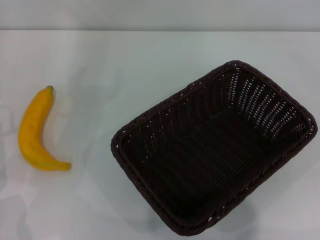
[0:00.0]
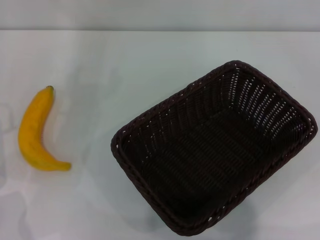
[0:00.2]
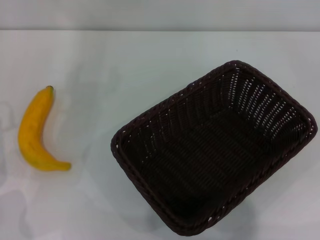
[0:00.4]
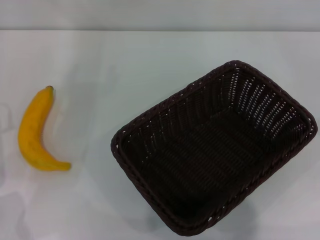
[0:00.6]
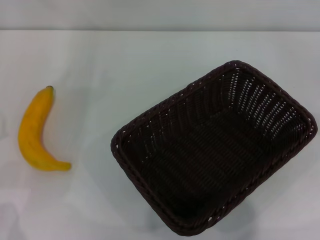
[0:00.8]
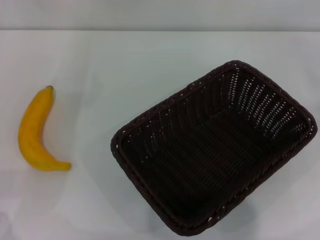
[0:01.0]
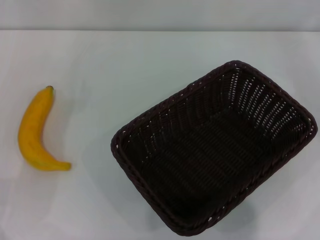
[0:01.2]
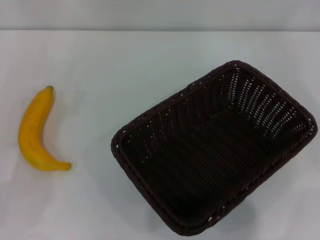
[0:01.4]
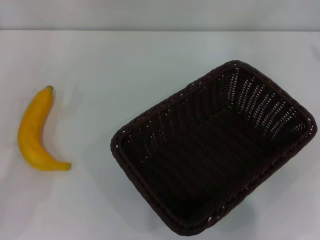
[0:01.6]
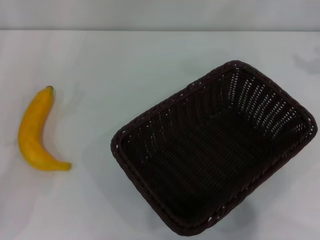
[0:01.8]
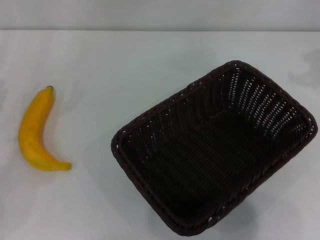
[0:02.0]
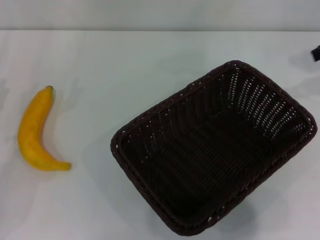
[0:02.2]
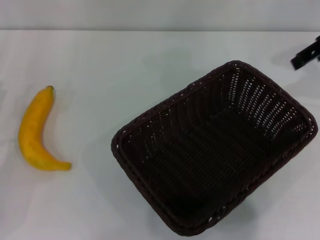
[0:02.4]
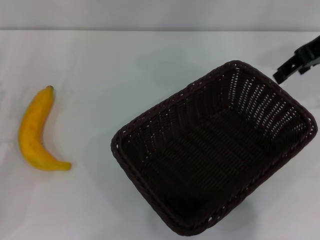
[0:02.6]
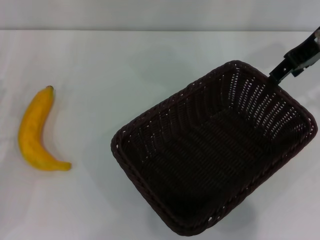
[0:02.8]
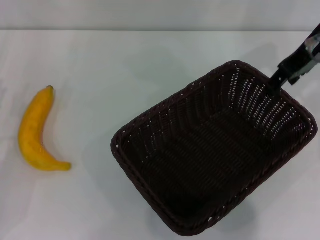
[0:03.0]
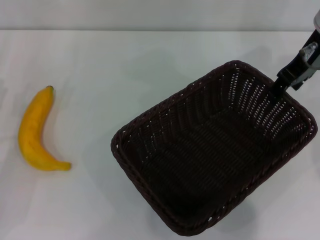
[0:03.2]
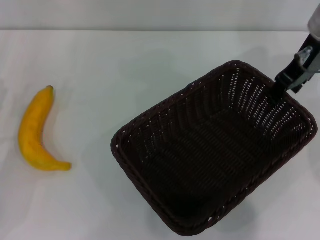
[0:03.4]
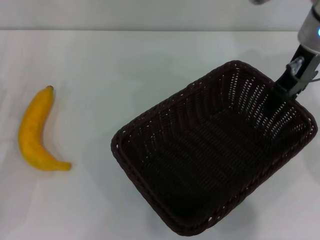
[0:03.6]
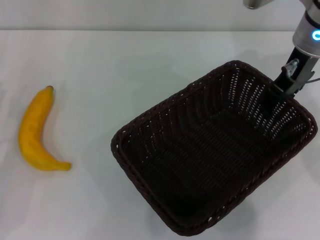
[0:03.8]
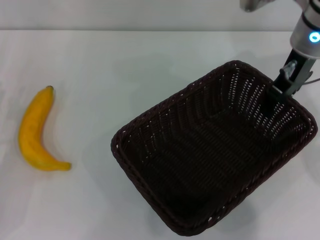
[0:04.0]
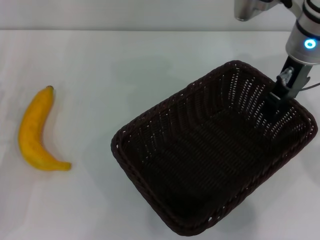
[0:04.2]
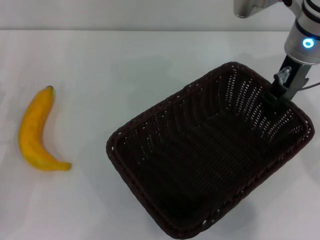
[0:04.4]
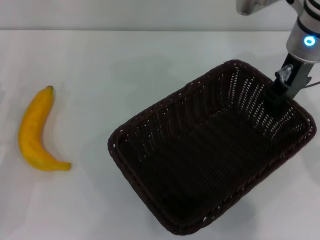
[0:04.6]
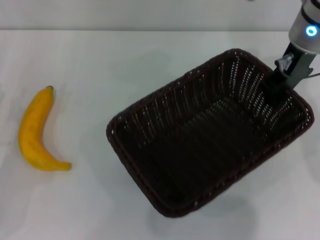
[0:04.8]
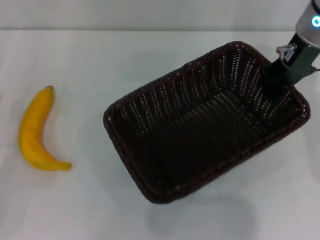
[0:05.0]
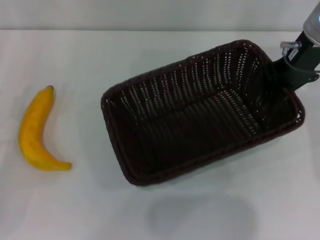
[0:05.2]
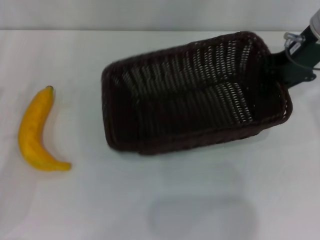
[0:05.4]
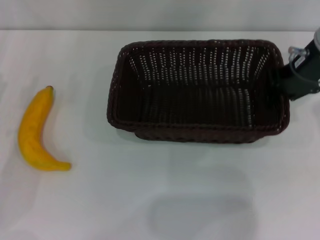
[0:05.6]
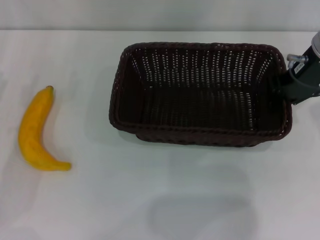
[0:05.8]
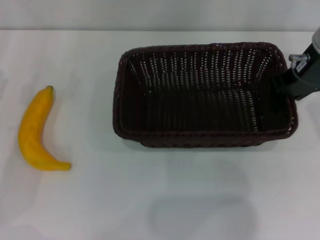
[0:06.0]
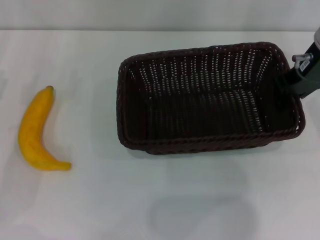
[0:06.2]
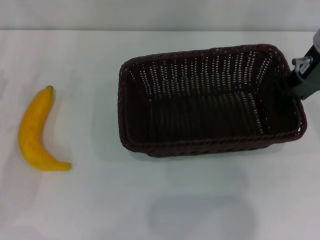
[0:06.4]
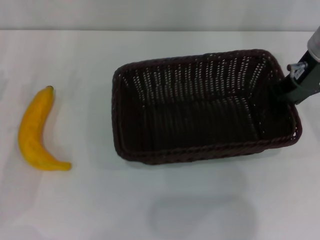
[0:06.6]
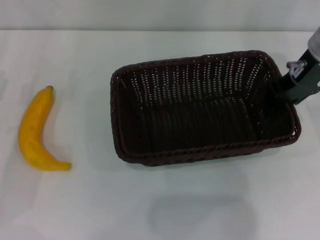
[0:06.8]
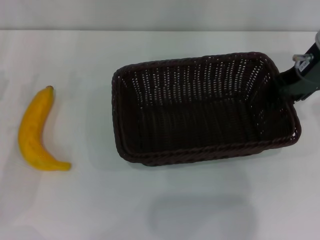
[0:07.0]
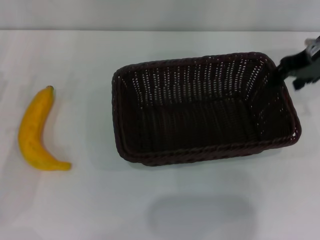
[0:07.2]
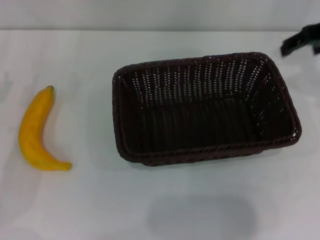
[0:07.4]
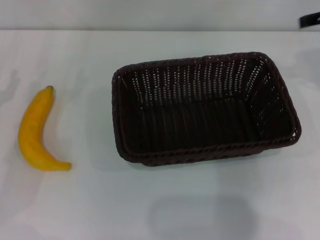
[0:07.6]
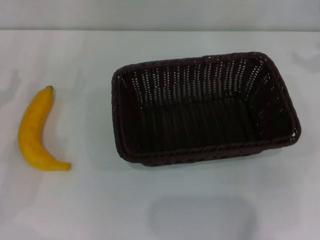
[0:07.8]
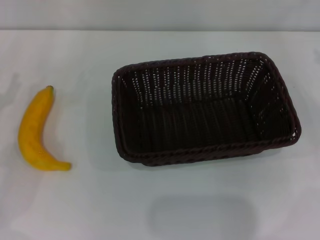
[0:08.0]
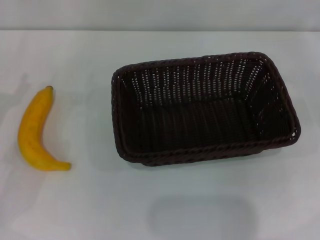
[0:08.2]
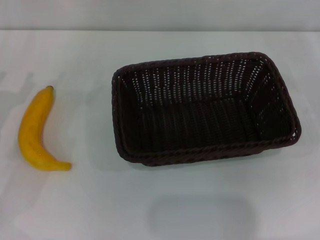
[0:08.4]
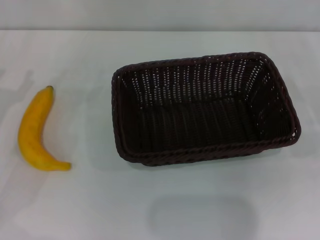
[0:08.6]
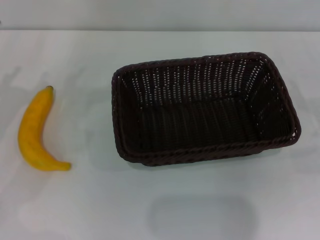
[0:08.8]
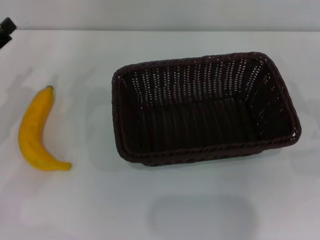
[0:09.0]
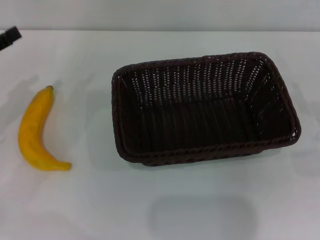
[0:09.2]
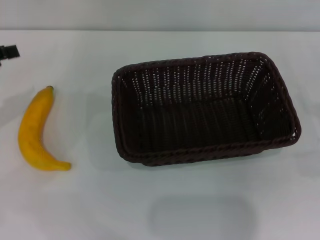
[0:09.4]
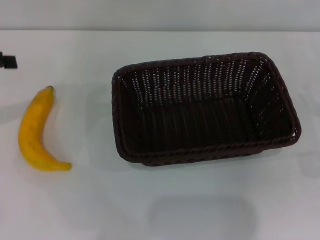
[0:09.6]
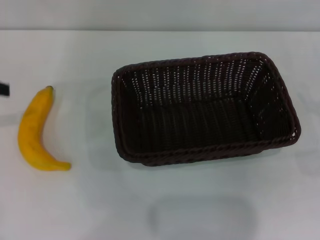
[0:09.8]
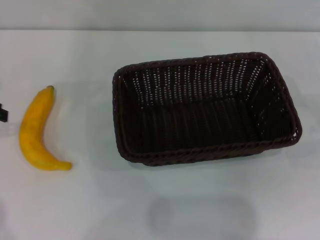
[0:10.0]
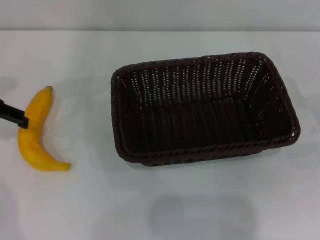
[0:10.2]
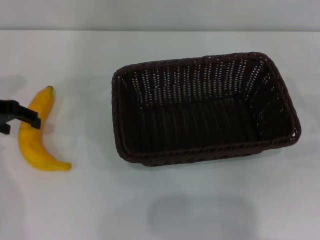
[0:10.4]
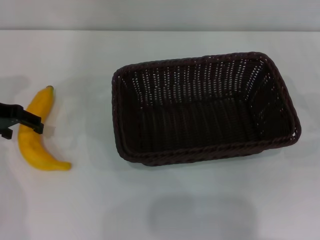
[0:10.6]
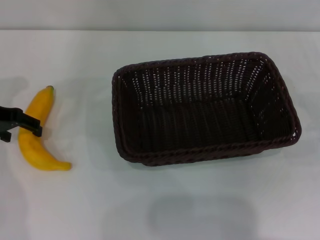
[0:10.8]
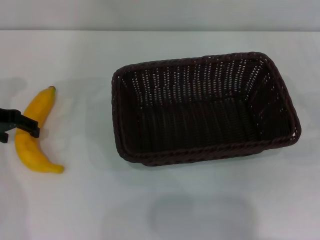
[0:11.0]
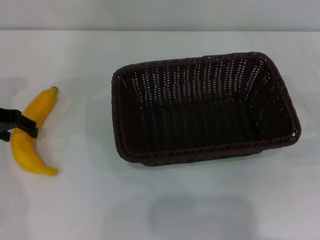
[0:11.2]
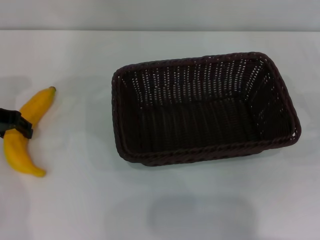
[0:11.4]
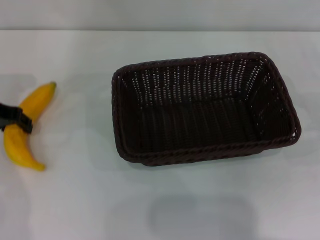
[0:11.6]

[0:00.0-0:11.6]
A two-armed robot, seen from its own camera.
Step, 0:00.0 to 0:05.0: Pick up the dark basket with the right gripper.
Step, 0:05.2 to 0:06.8: Place the dark basket in the center of view with the right gripper.
0:01.4 to 0:02.8: The right gripper heads to the left, covering approximately 20 cm.
0:02.8 to 0:04.4: The right gripper travels to the left and downward by approximately 10 cm, and closes.
0:04.4 to 0:05.8: The right gripper closes up.
0:05.8 to 0:07.2: The right gripper opens.
0:07.2 to 0:08.8: The right gripper shifts about 30 cm downward, to the right and backward, and opens up.
0:08.8 to 0:10.2: The left gripper travels upward and forward by roughly 10 cm.
0:10.2 to 0:11.6: The left gripper moves some 5 cm, and closes.

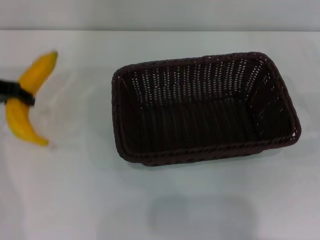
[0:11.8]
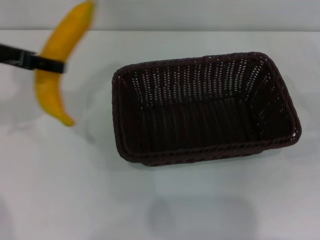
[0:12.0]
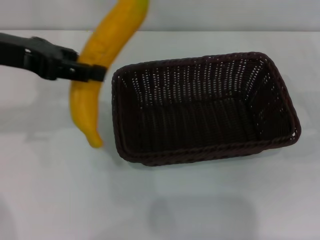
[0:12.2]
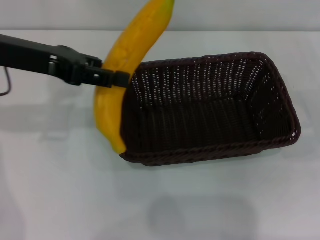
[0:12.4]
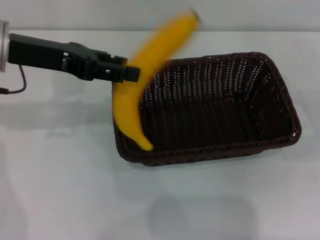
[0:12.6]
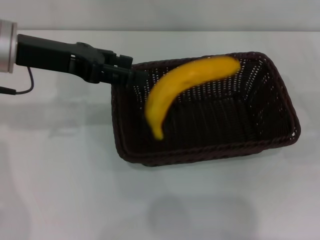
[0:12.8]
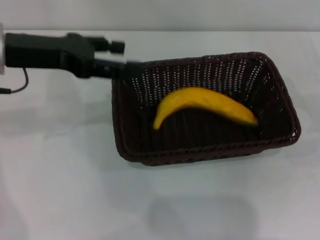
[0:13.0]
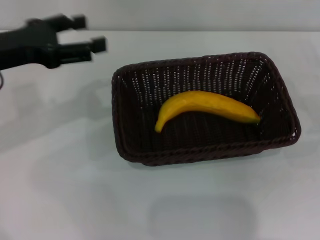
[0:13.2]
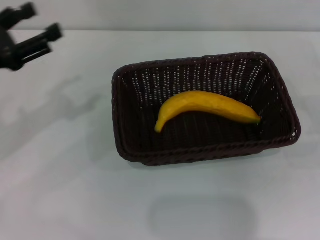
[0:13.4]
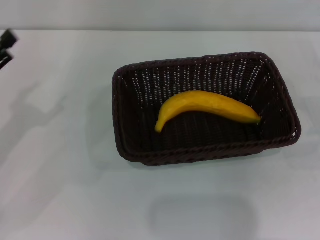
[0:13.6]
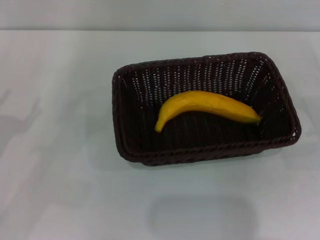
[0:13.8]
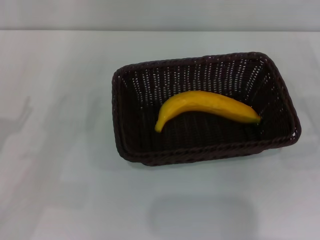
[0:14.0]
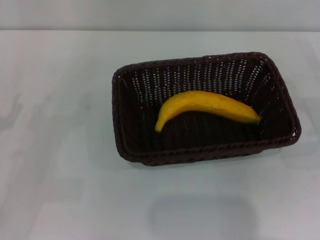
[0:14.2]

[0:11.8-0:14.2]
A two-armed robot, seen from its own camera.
Step, 0:11.8 to 0:13.0: Place the banana into the dark basket with the left gripper.
0:11.8 to 0:13.0: The left gripper is displaced to the right by approximately 5 cm, and opens its fingers.
0:13.0 to 0:14.2: The left gripper shifts some 20 cm downward, backward and to the left.
